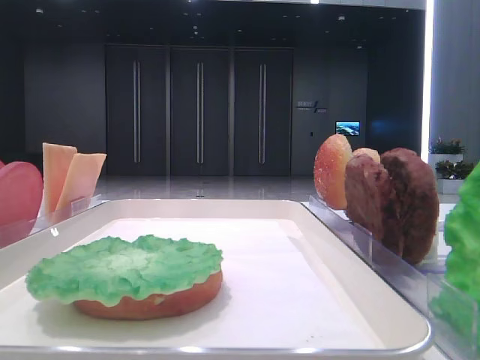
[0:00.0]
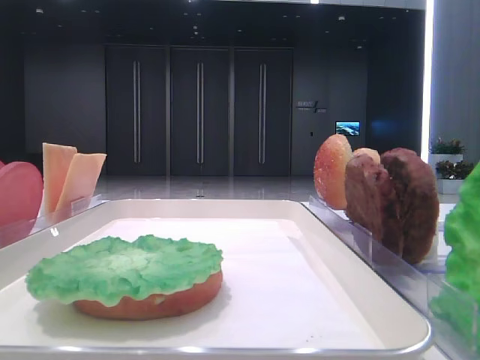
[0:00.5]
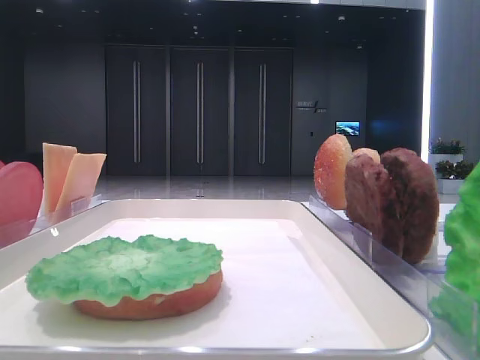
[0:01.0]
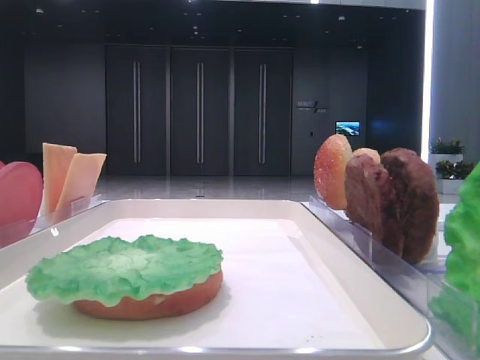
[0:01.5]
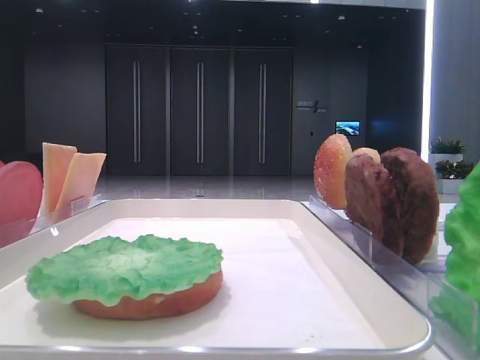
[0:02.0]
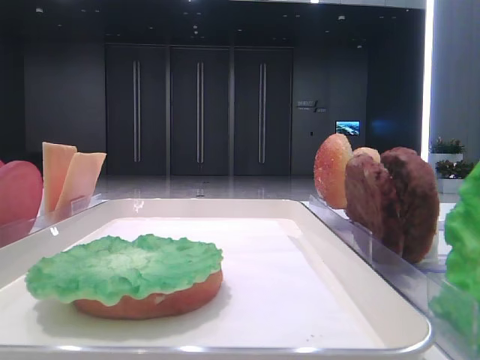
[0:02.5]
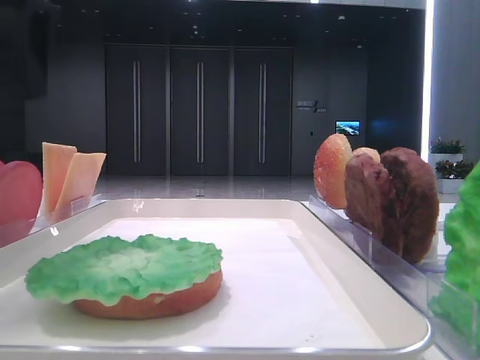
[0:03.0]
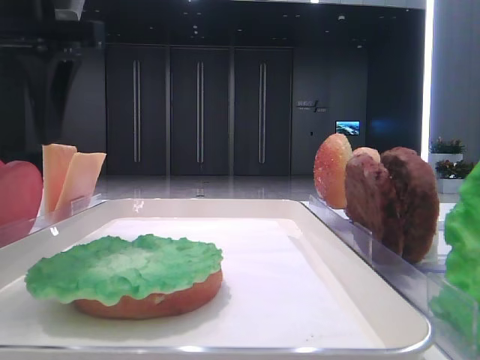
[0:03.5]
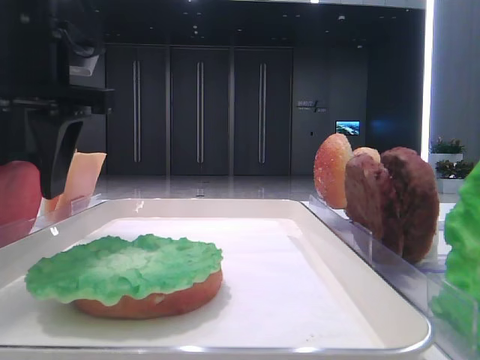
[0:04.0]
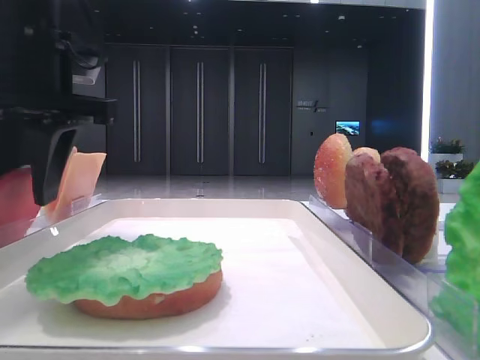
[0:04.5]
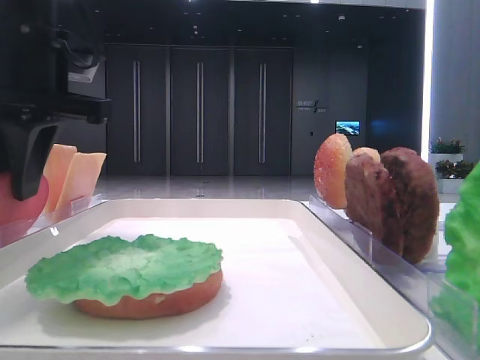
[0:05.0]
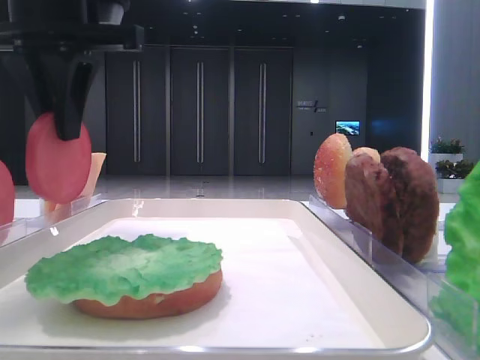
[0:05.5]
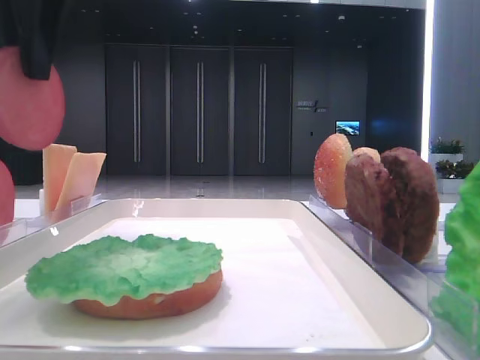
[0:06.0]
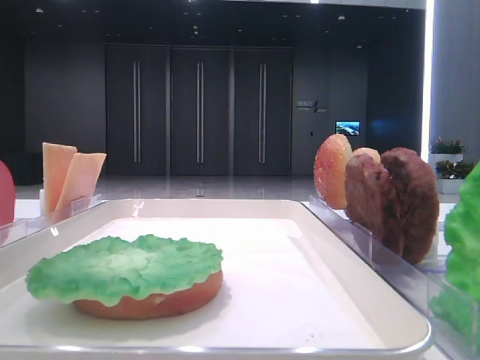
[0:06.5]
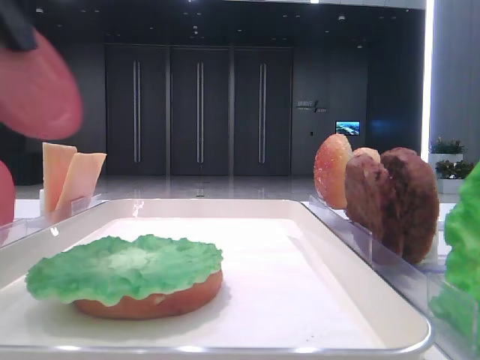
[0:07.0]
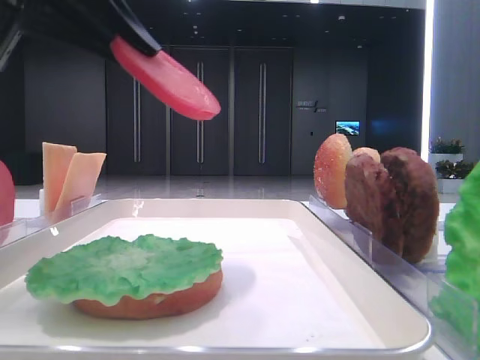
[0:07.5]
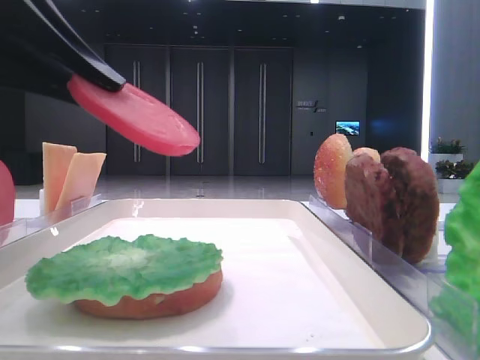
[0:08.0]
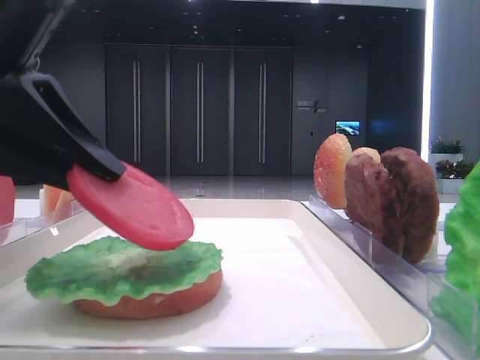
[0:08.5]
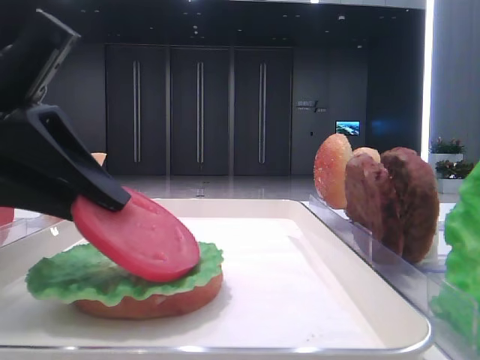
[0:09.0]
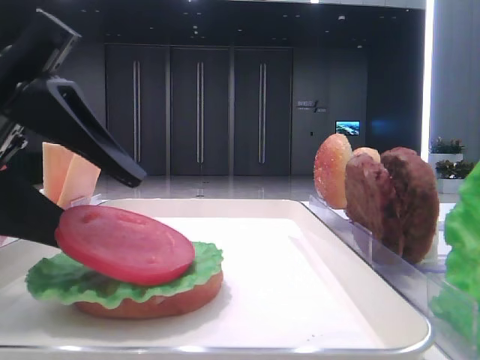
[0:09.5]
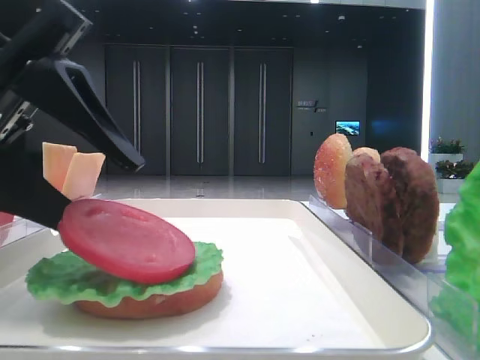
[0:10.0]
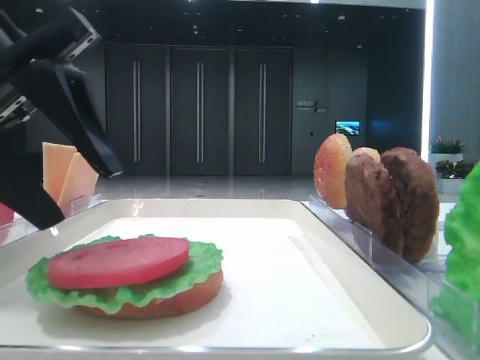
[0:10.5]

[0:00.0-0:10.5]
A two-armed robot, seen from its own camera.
Step, 0:00.0 to 0:04.5: Pick up the tomato slice with the left hand.
Step, 0:05.0 to 0:10.0: Place the tomato slice on the lettuce leaf with the left hand.
0:02.0 to 0:04.0: The left gripper goes about 20 cm to the right, forward and downward.
0:04.0 to 0:06.5: The left gripper heads backward and upward, covering some 15 cm, and closes.
0:06.5 to 0:08.5: The left gripper shifts about 15 cm downward.
0:08.5 to 0:10.5: The left gripper opens.

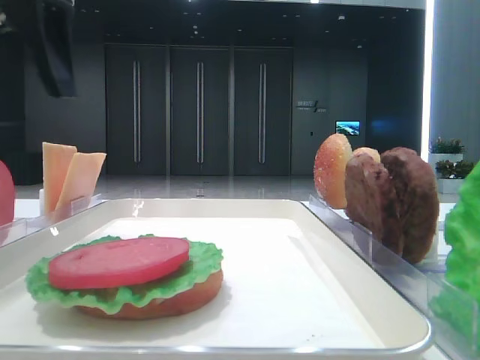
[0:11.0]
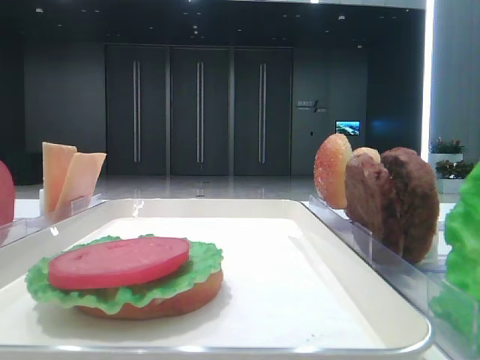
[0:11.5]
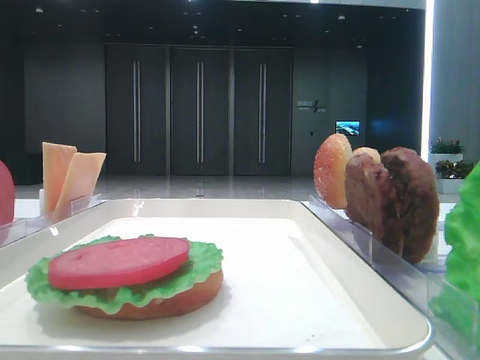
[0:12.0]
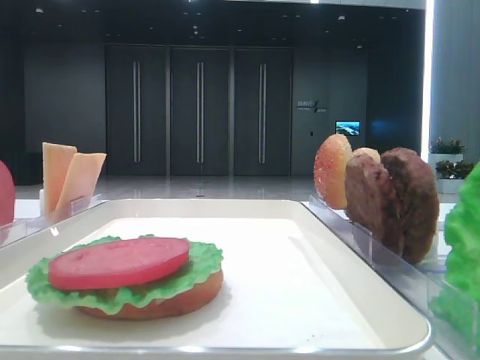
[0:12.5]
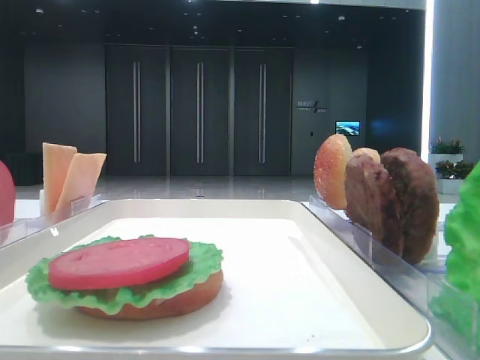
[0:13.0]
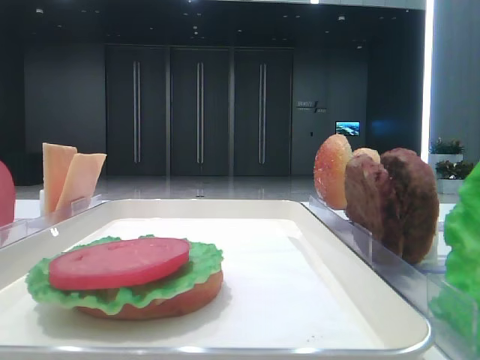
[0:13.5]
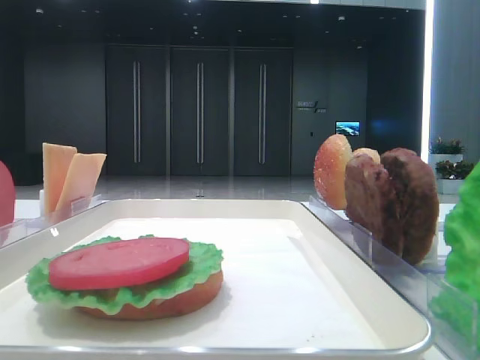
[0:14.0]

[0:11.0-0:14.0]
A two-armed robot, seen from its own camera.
0:11.0 to 0:12.5: The left gripper is displaced to the left, backward and upward by approximately 15 cm.

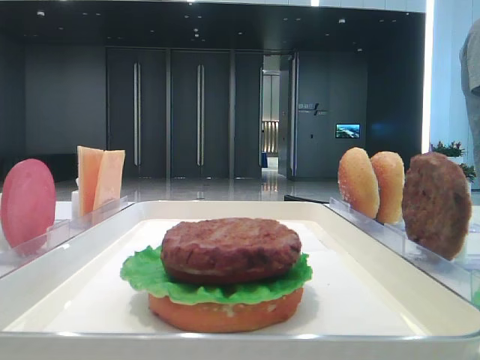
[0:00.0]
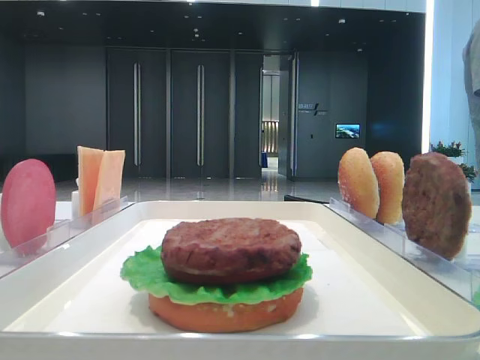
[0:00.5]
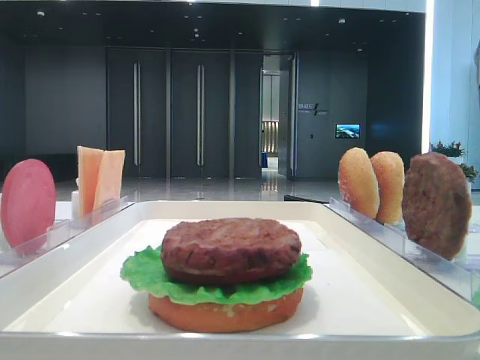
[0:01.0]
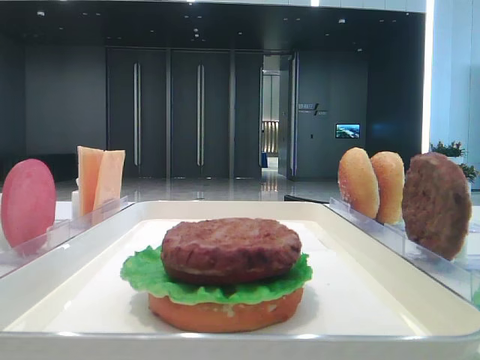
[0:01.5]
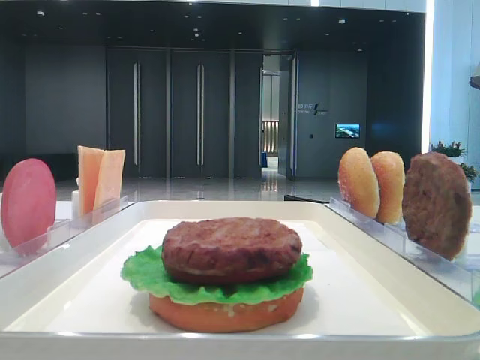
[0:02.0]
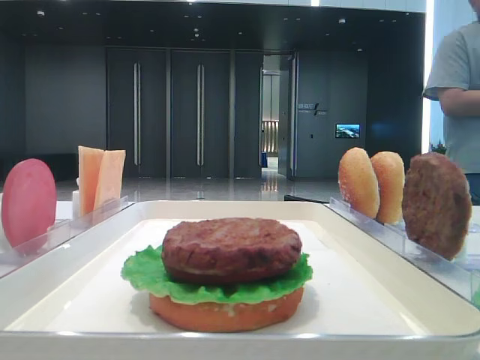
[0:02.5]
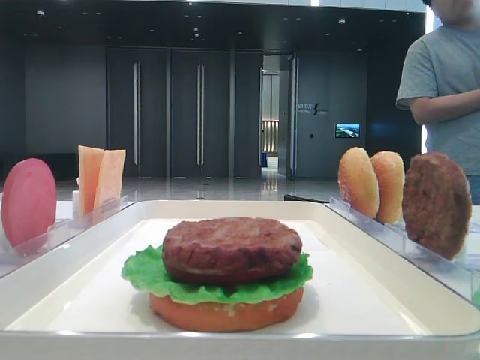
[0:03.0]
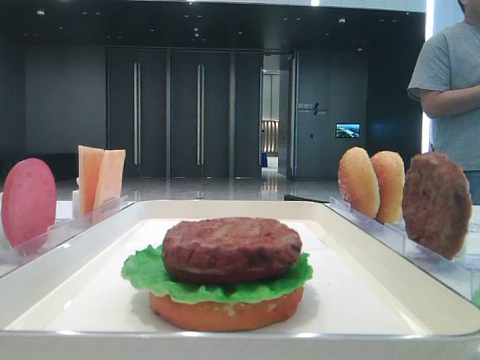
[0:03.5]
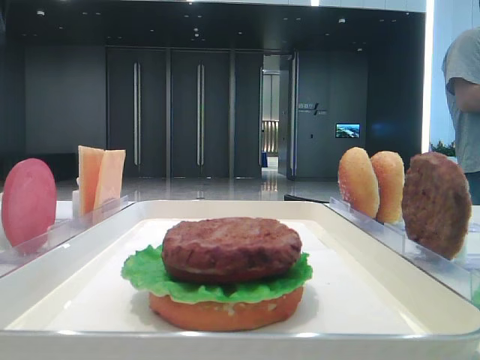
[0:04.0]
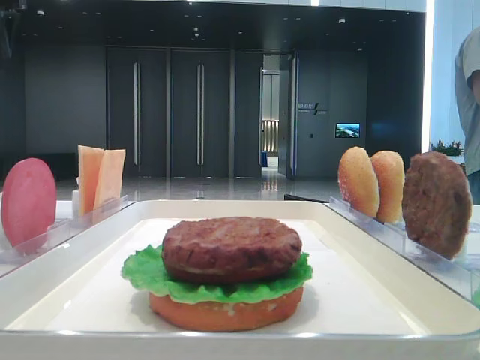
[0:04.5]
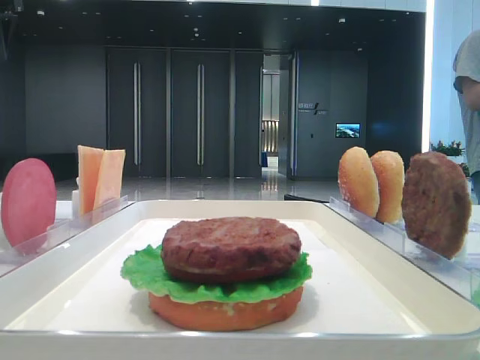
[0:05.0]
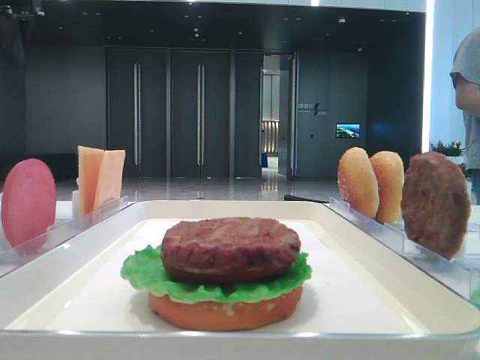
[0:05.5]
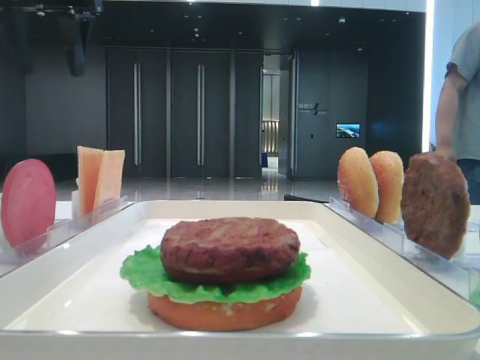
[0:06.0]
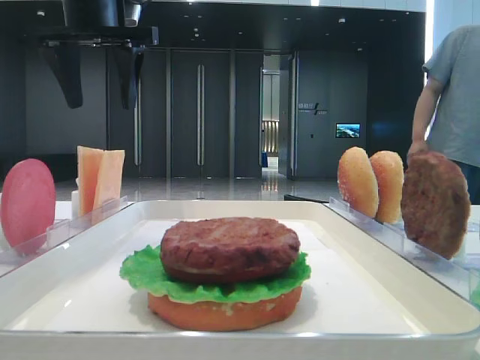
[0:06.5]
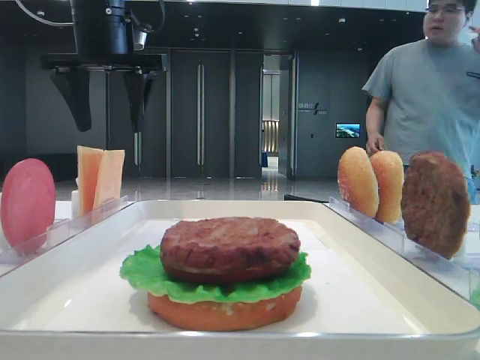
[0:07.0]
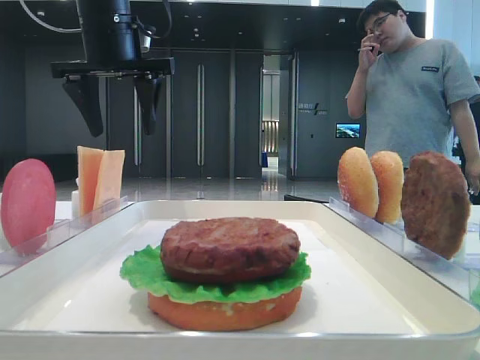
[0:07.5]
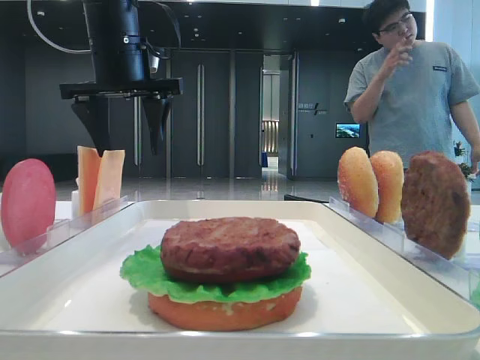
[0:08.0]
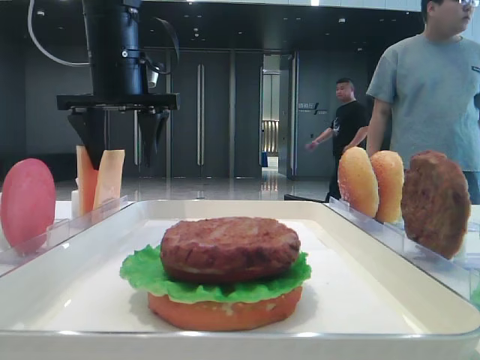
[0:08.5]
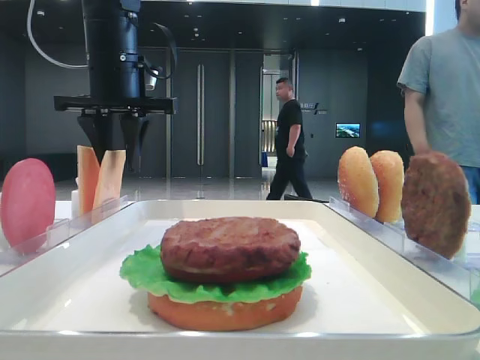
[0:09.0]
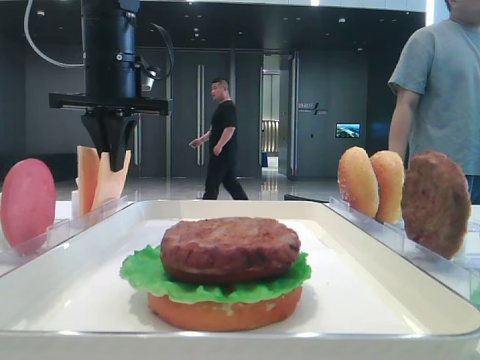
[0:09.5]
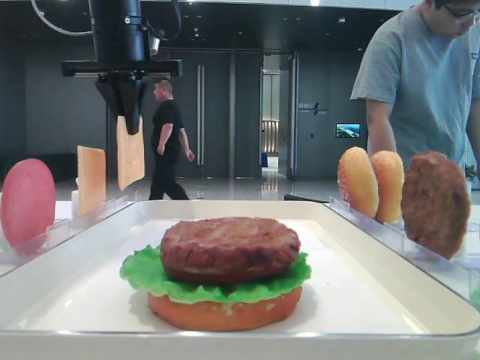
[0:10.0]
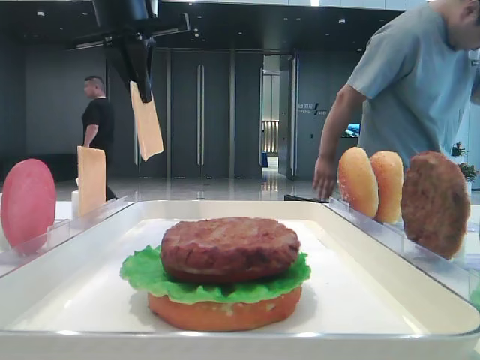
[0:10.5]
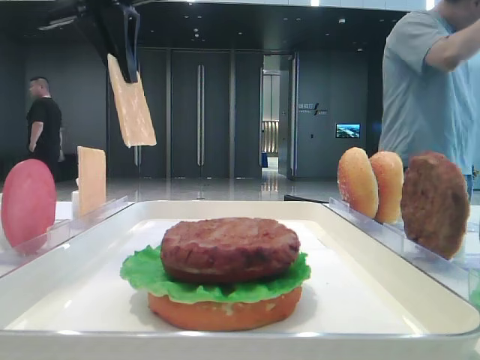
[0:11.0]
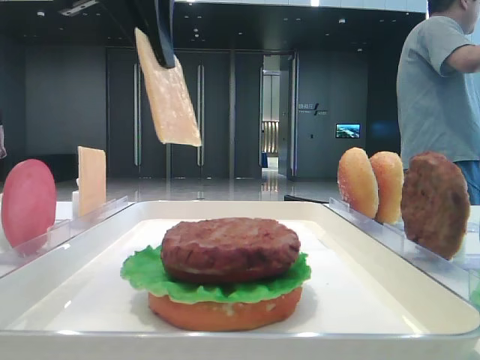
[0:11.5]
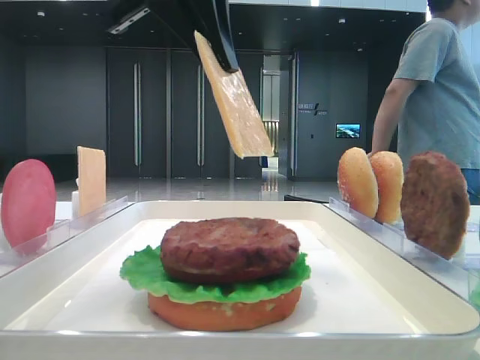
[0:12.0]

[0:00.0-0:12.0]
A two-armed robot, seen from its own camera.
Step, 0:00.0 to 0:09.5: Pick up the cheese slice with the left hand.
0:04.0 to 0:06.0: The left gripper moves to the right, some 10 cm.
0:06.0 to 0:08.0: The left gripper heads downward and to the right, covering about 15 cm.
0:08.0 to 0:10.0: The left gripper closes.
0:10.0 to 0:12.0: The left gripper shifts about 20 cm backward and to the right.
